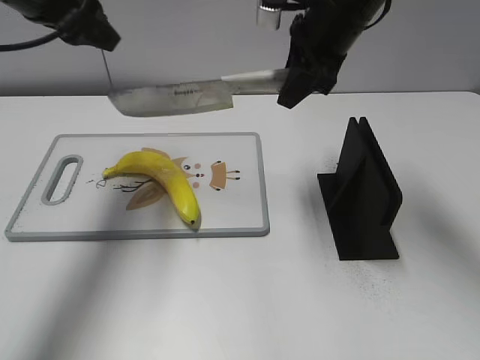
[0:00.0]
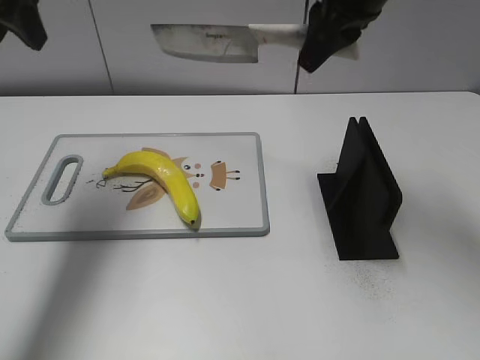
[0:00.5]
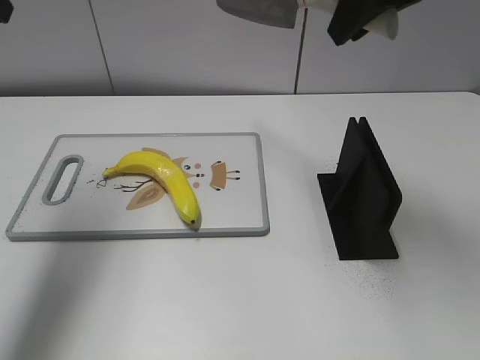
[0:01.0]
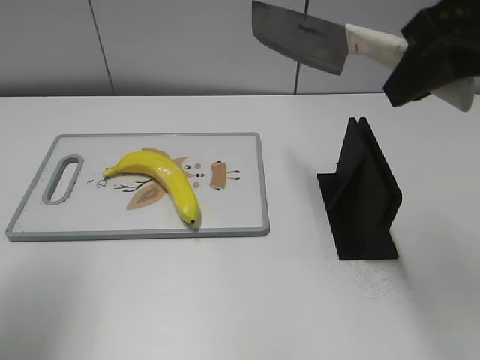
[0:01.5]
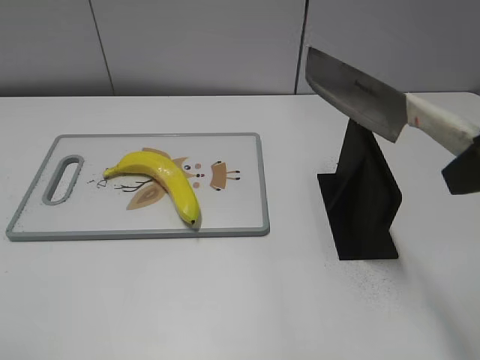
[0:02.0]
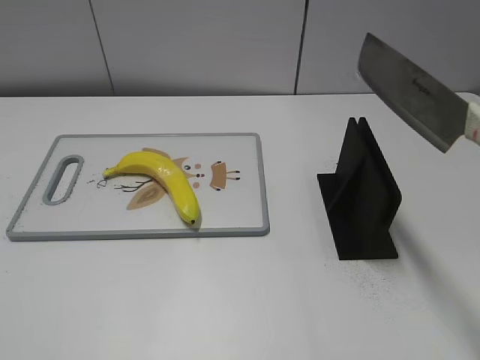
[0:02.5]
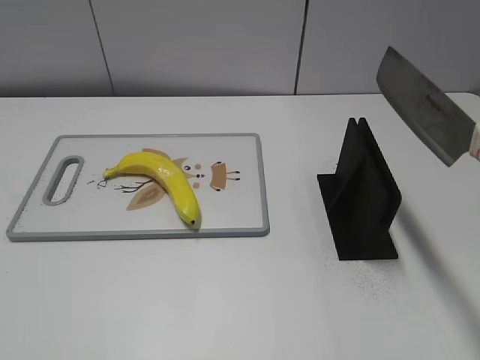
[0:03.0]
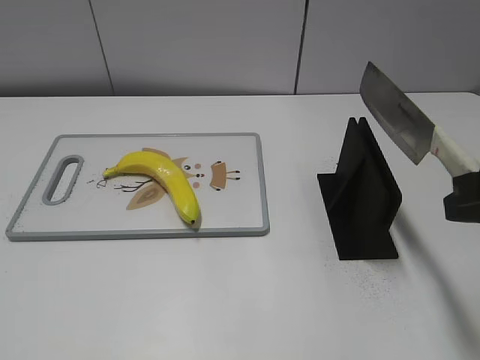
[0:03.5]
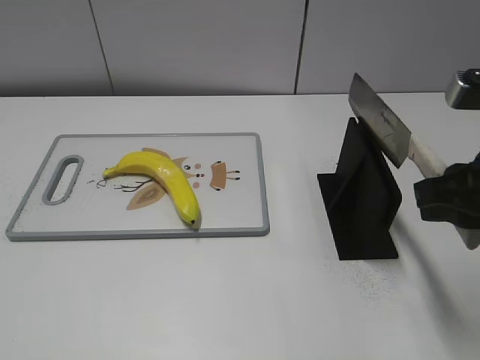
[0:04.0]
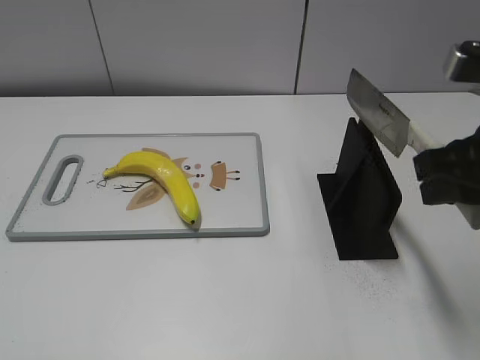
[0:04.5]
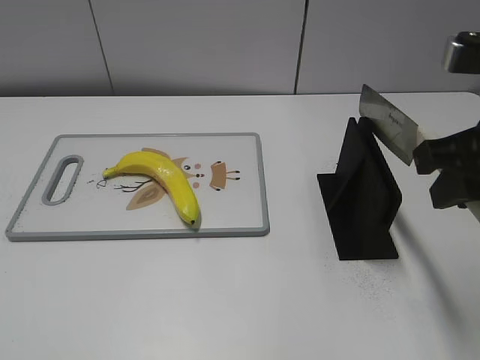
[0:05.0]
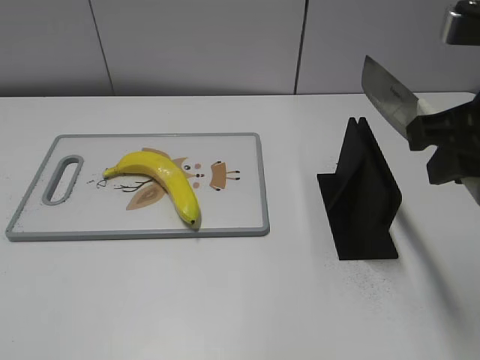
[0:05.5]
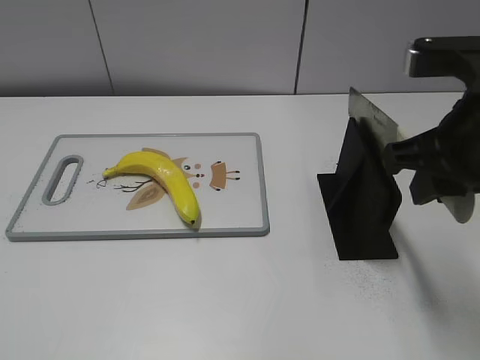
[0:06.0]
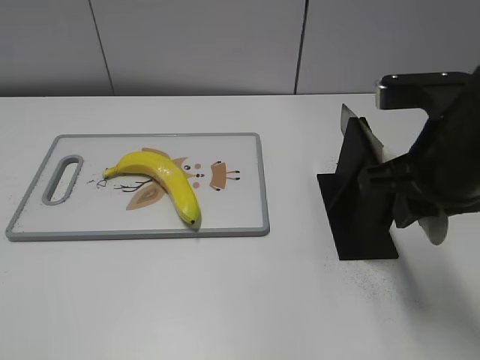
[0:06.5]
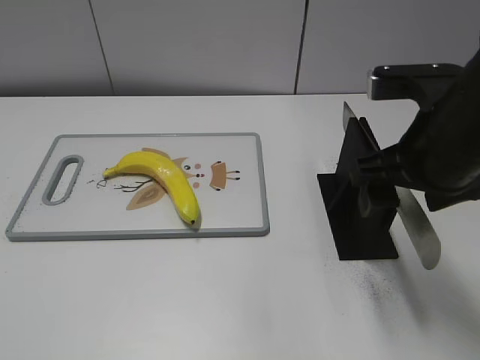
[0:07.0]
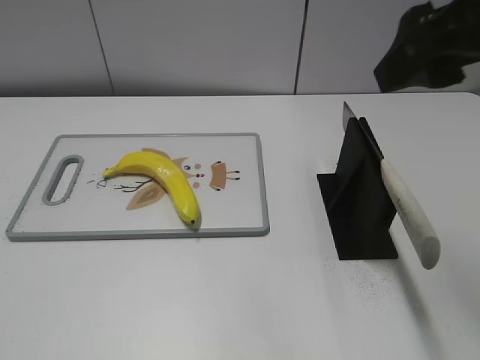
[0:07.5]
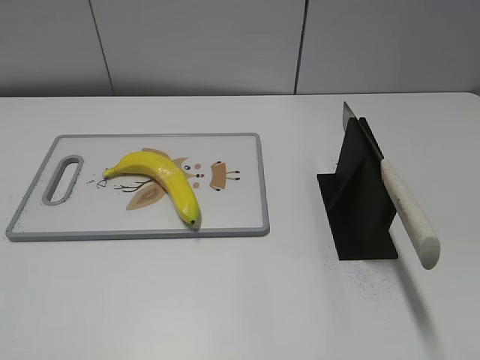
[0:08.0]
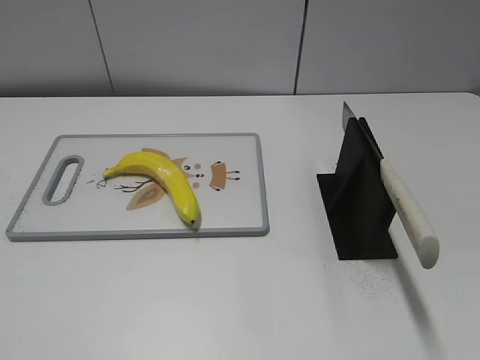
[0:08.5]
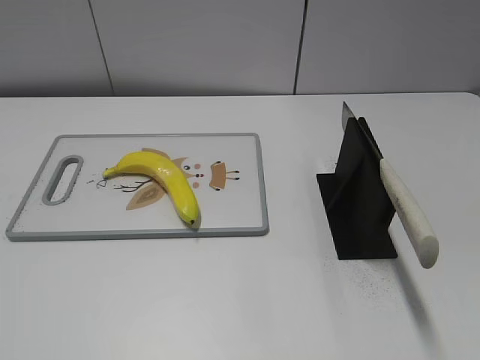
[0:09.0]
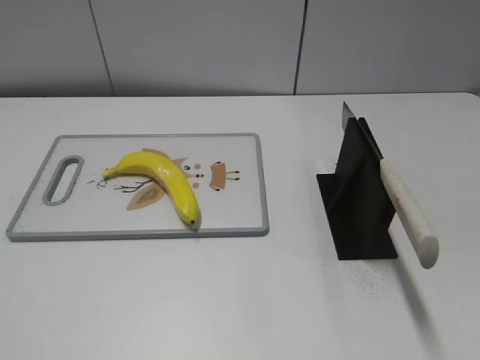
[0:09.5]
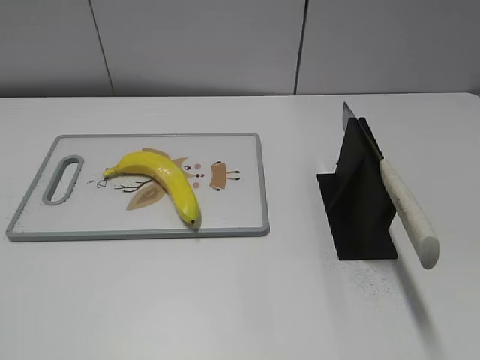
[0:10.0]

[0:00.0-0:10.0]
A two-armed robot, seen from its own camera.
Task of the whole recording: cut plastic banana.
Step, 0:01.0 to 0:02.0: Lift the knife with your right hand.
Step, 0:02.5 to 0:10.0: Place the knife on the storage rack with your right hand.
0:00.0 to 0:02.0: The left gripper shifts about 30 cm backward, while the right gripper shifts roughly 25 cm backward and to the right.
0:02.0 to 0:04.0: The right gripper heads downward, covering approximately 10 cm.
0:04.0 to 0:06.0: The right gripper shifts by about 5 cm.
0:06.0 to 0:08.0: The right gripper heads backward, upward and to the right, covering some 15 cm, and opens up.
